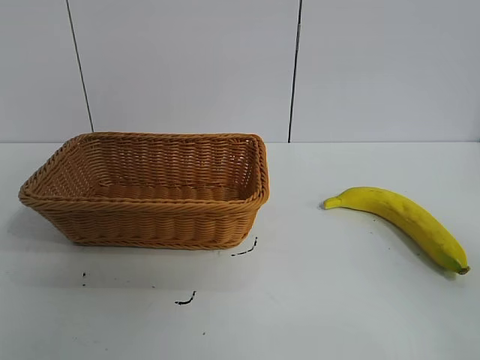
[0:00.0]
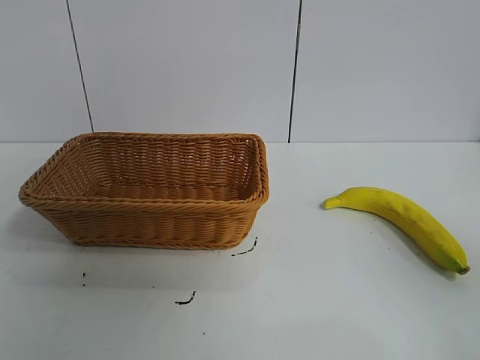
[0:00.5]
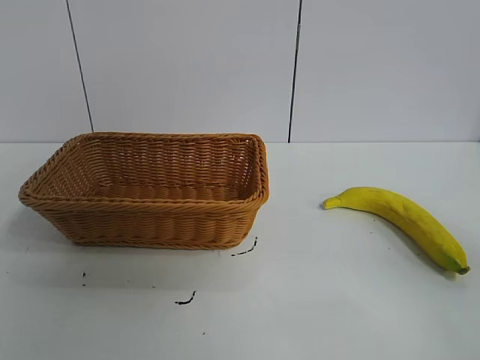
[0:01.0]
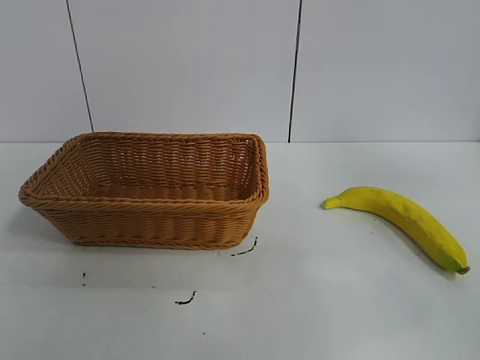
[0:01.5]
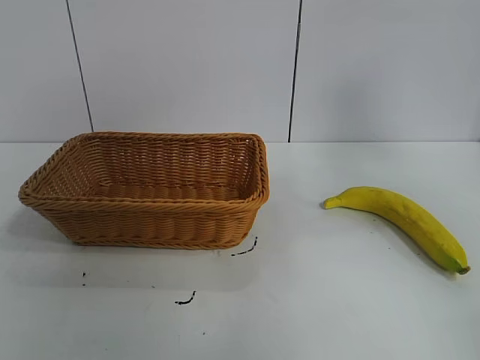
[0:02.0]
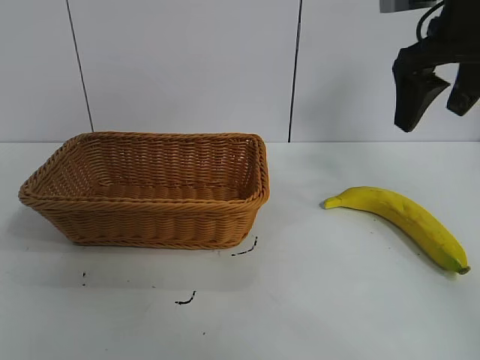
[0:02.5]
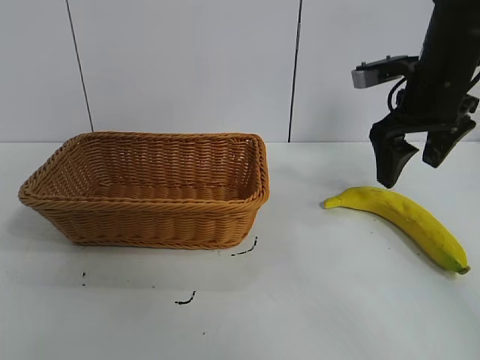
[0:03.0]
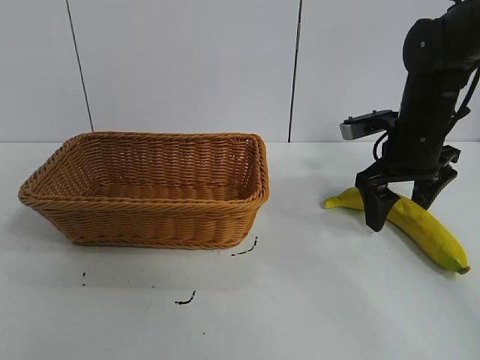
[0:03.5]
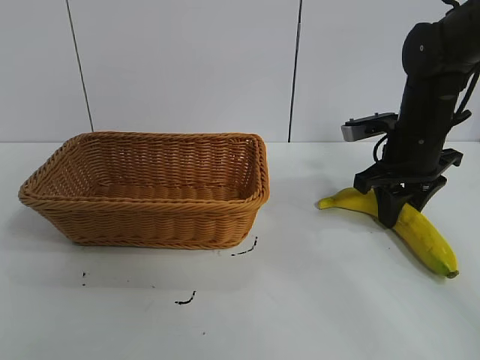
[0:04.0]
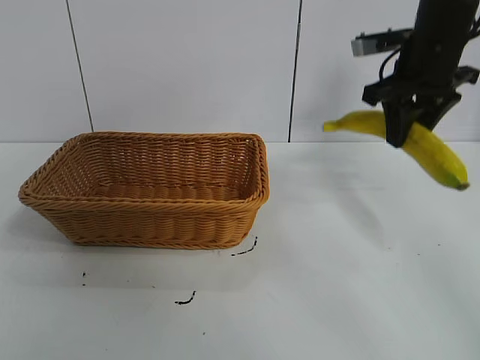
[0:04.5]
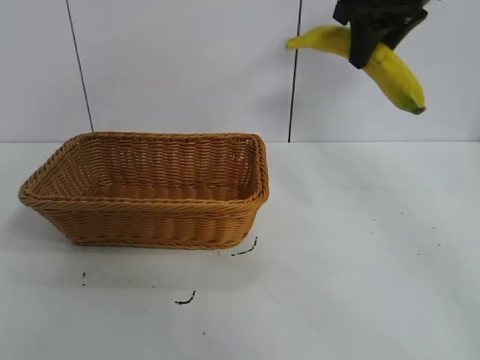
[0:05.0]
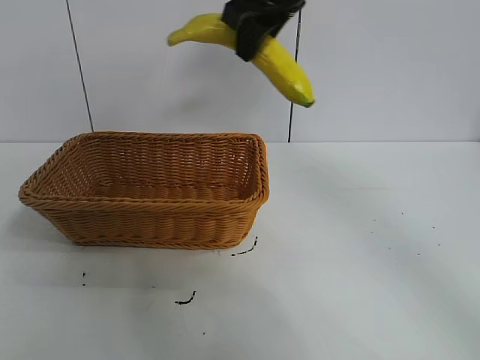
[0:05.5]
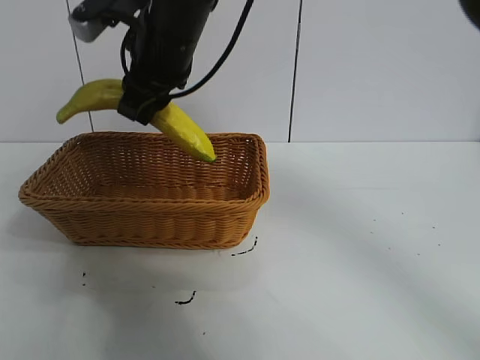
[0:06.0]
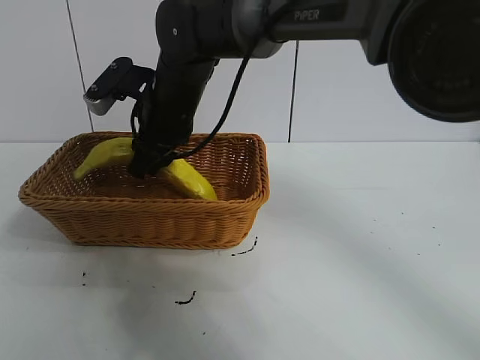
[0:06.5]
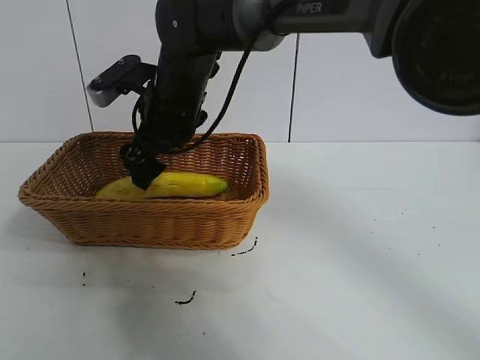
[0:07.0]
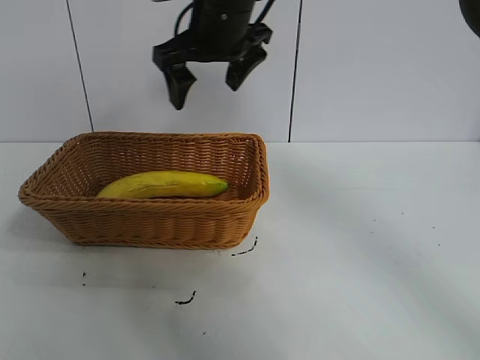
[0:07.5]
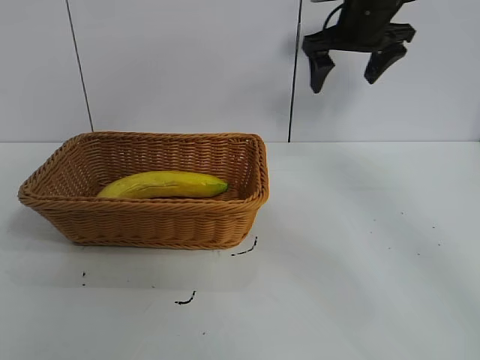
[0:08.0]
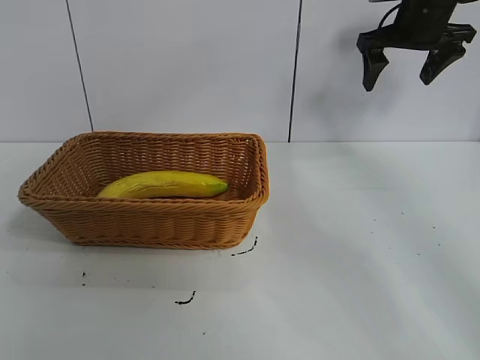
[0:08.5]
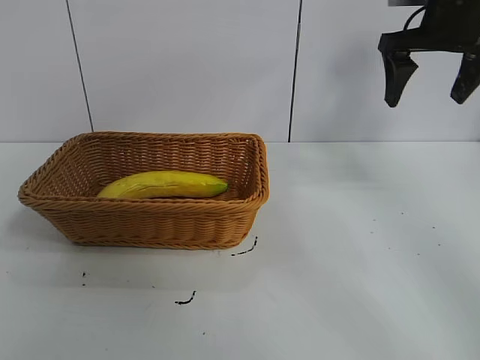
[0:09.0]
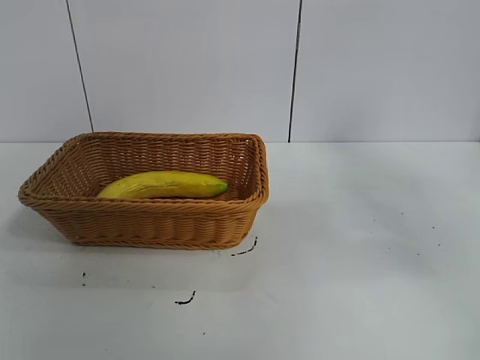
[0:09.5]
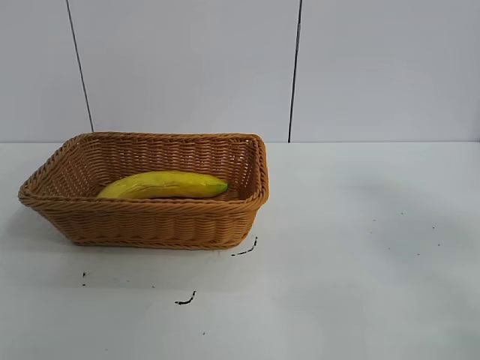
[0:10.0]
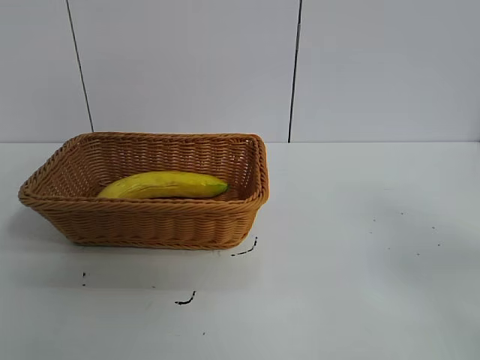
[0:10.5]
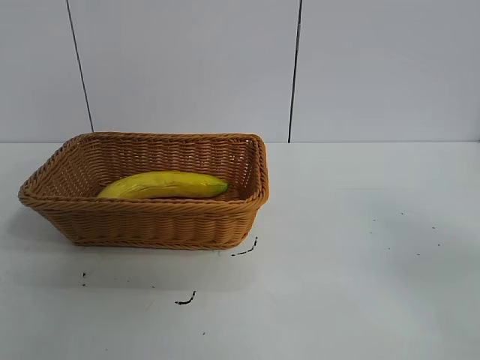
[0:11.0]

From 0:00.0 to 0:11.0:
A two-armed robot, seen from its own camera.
Task of the whole recording: pick up the banana and put it into the basket.
Step, from 0:01.0 to 0:04.0: Grasp the banana with right gripper.
Step, from 0:04.5 to 0:06.5: Place the banana in the basket with right gripper.
